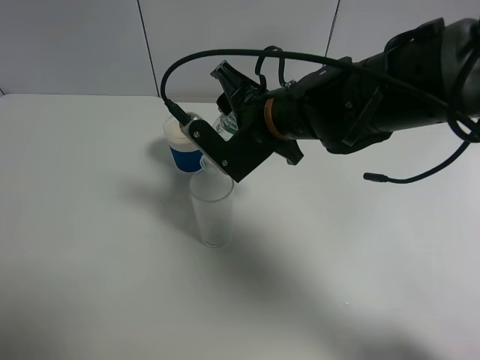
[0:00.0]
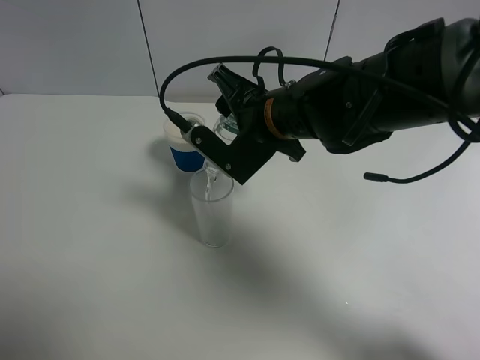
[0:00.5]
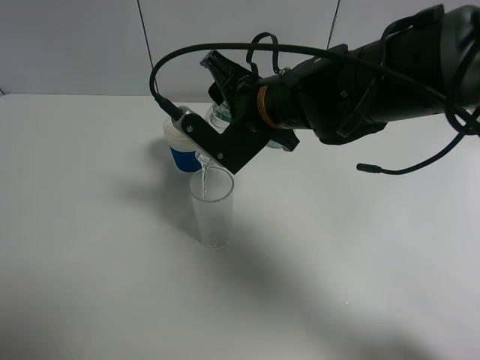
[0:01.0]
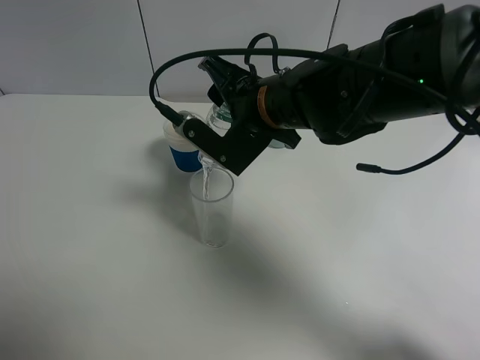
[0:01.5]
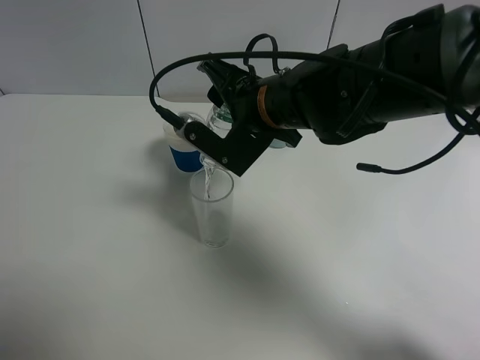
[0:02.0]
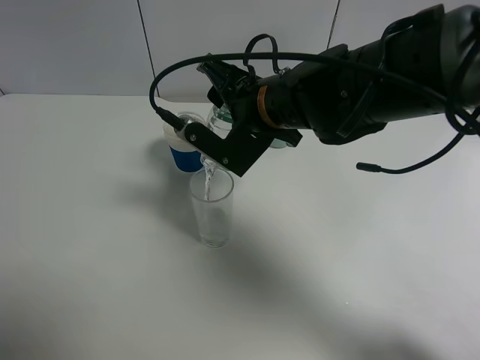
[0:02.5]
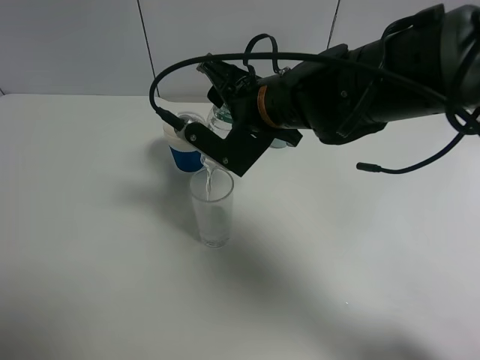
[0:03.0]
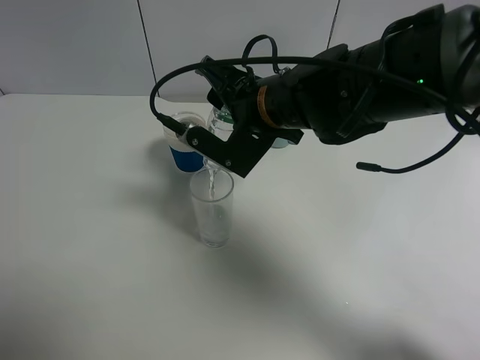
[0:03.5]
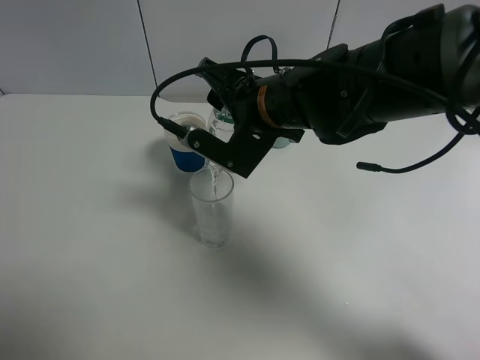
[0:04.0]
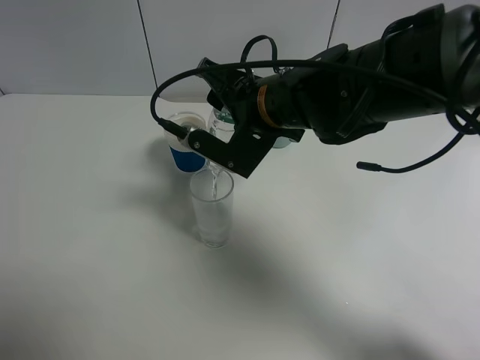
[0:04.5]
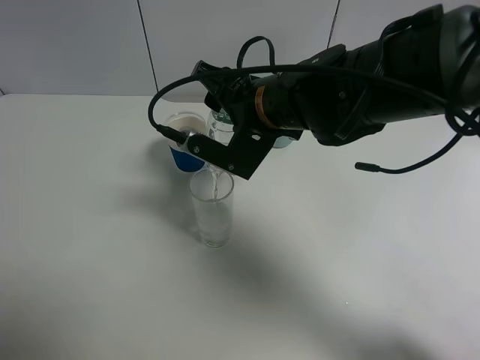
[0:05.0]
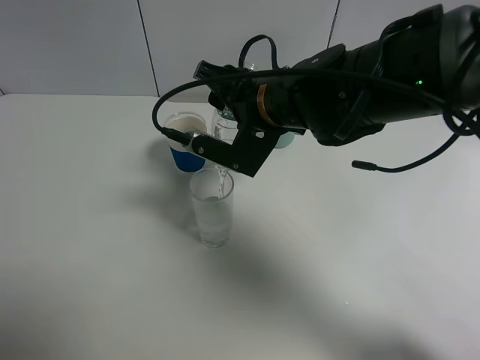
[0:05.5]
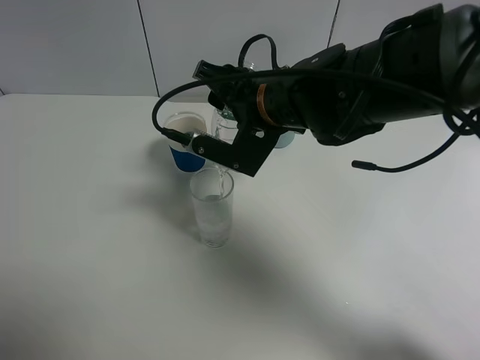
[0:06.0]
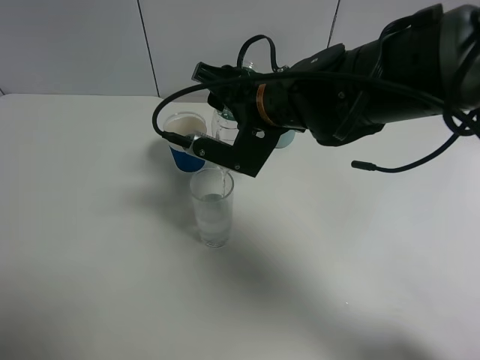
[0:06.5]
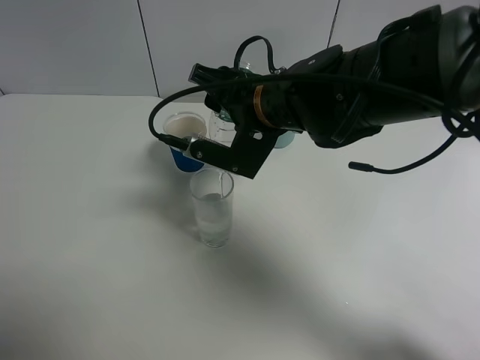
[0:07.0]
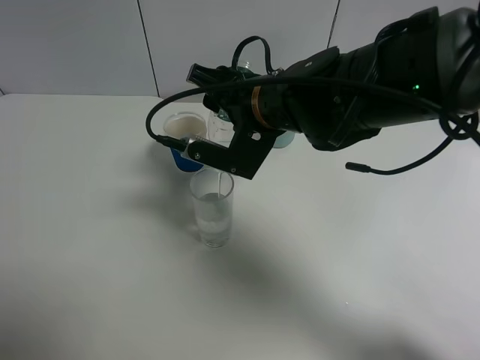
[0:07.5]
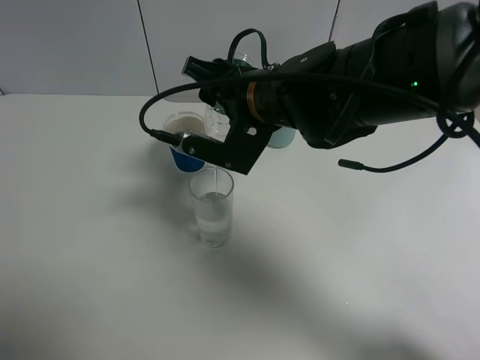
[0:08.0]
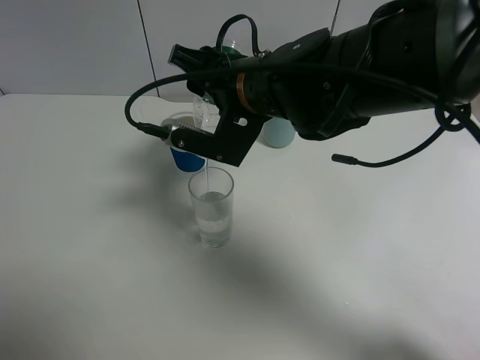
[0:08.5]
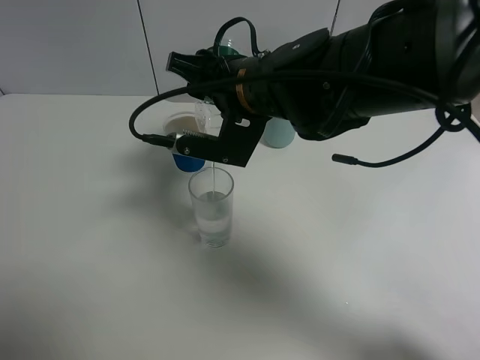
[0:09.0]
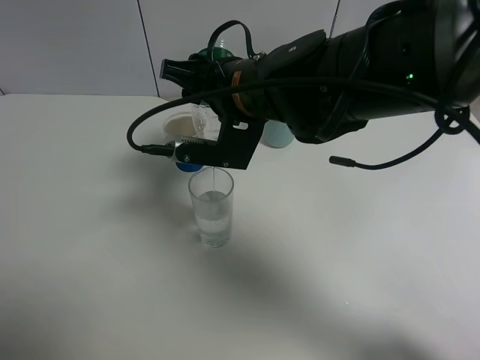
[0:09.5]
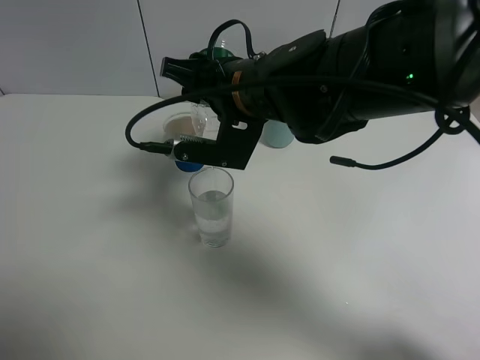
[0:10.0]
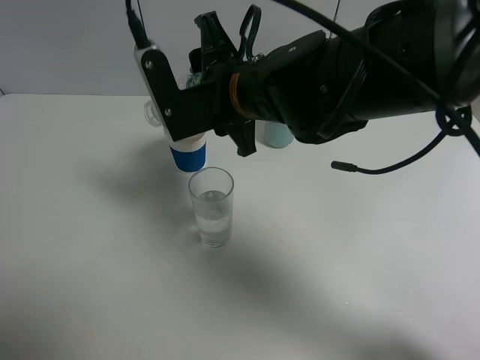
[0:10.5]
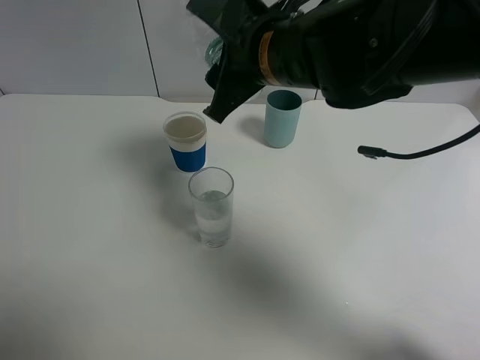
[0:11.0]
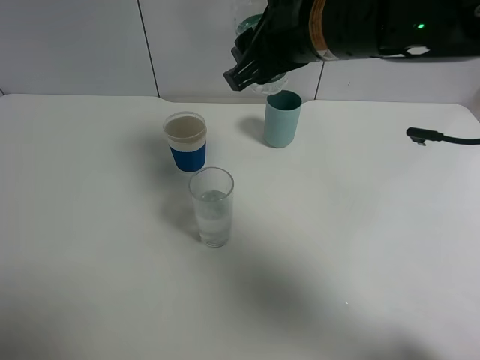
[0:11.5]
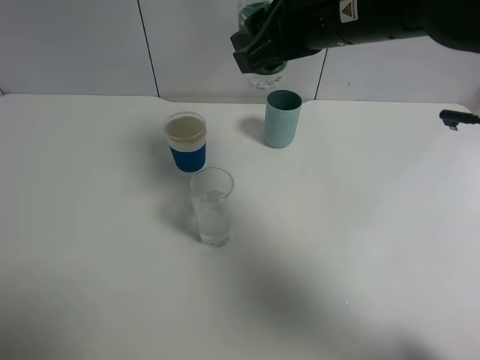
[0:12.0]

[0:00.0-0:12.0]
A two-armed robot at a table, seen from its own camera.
Task of the whole recording: use a gripper to hold the bottle of the drink and pour it into a random cup.
Step, 0:00.0 to 0:09.5: Pour the mineral water into the glass with the right gripper.
0:00.0 to 0:04.0: There are only small adjustments of the grippers.
0:04.0 to 0:06.0: There are only small adjustments of the grippers.
0:06.0 to 0:08.0: Both grippers stay put.
0:08.0 to 0:10.0: There are only small adjustments of the grippers.
0:10.0 to 0:12.0: The right gripper goes roughly 10 cm upward and to the right.

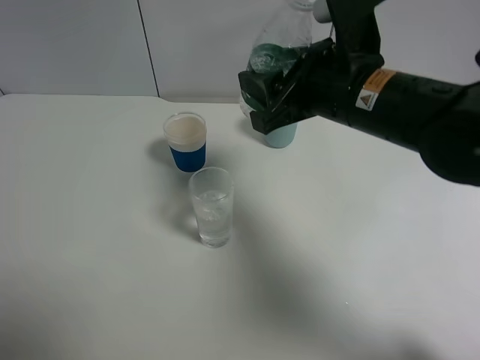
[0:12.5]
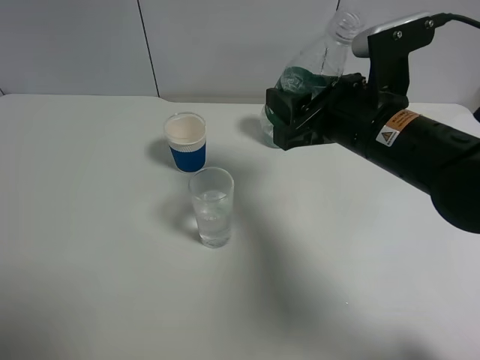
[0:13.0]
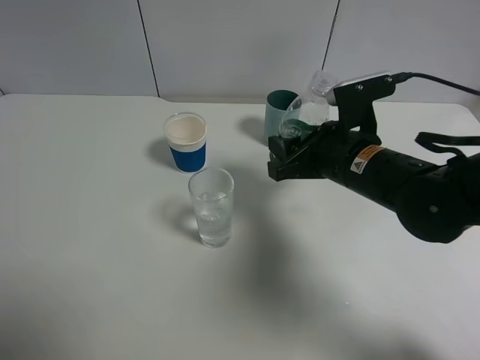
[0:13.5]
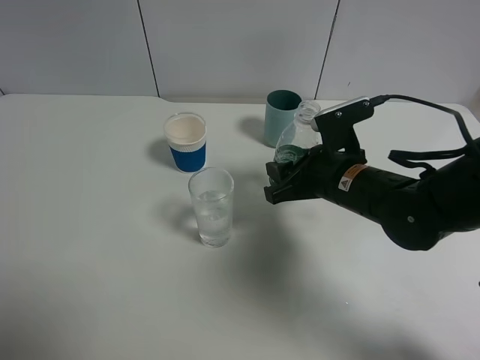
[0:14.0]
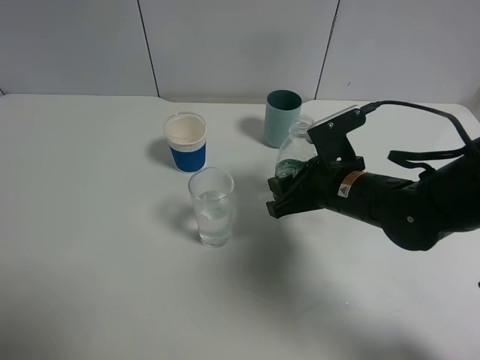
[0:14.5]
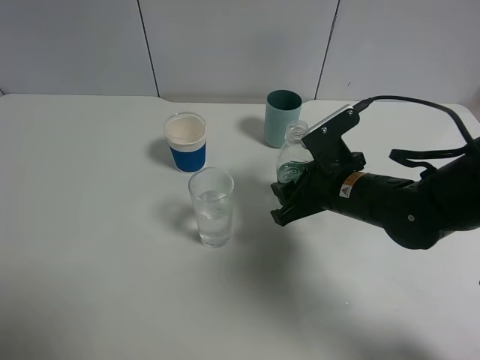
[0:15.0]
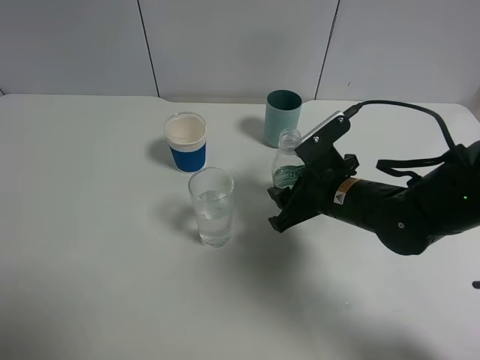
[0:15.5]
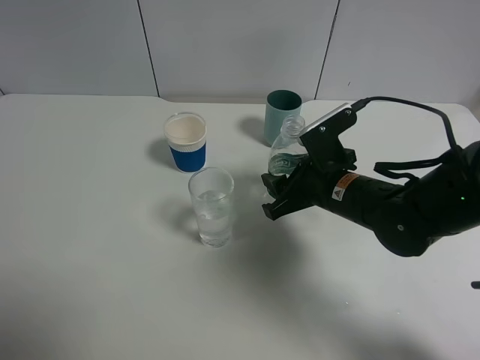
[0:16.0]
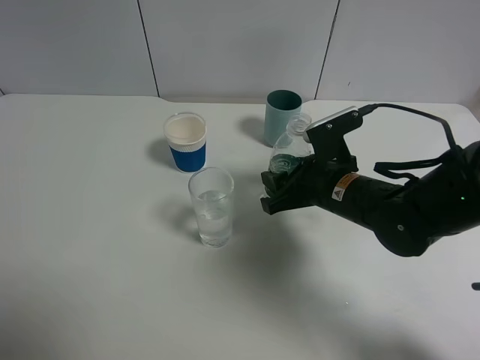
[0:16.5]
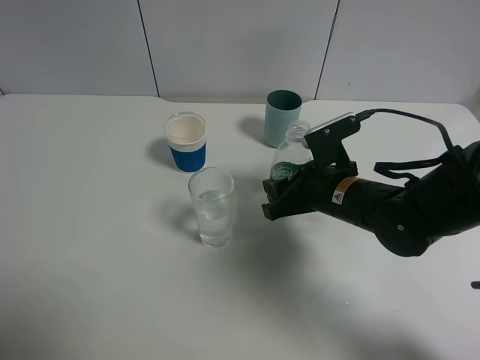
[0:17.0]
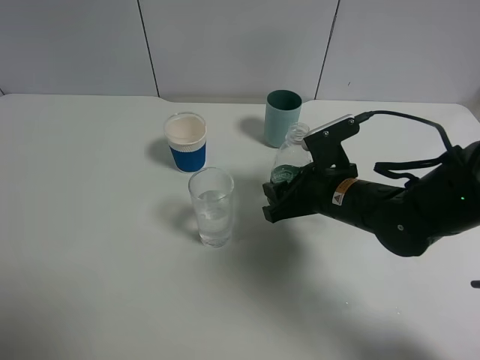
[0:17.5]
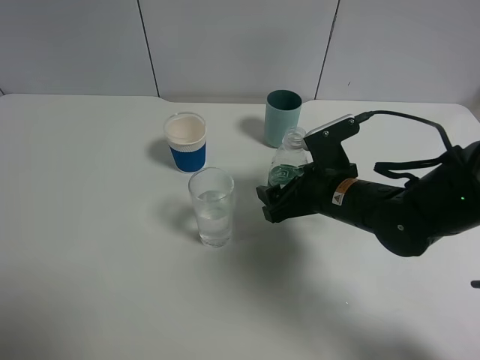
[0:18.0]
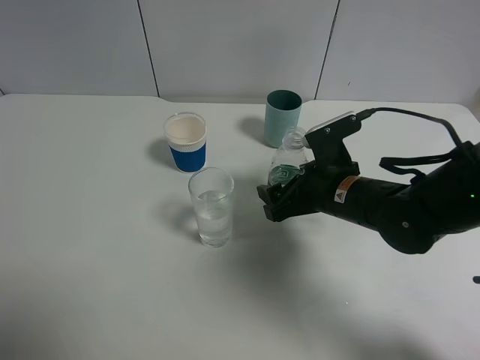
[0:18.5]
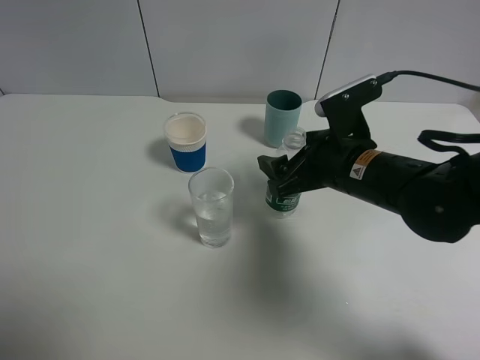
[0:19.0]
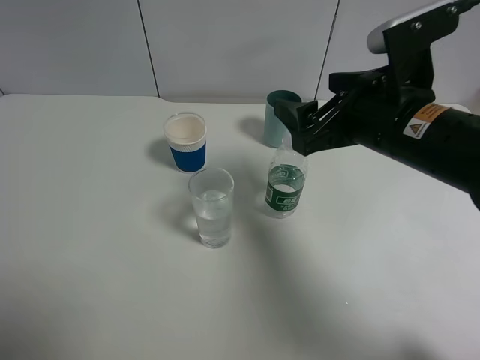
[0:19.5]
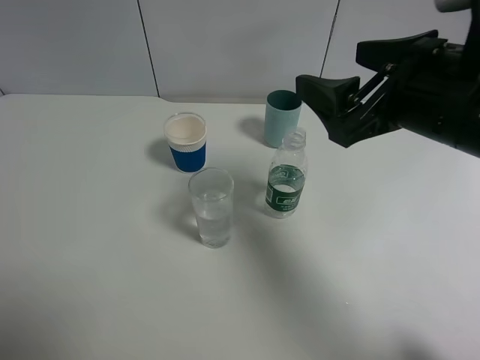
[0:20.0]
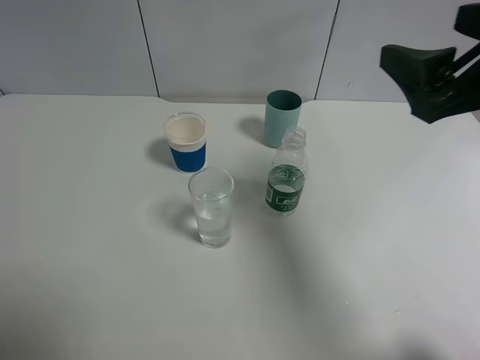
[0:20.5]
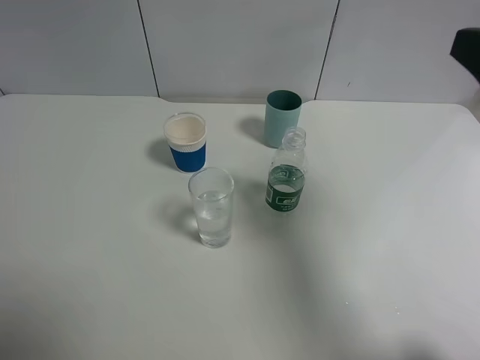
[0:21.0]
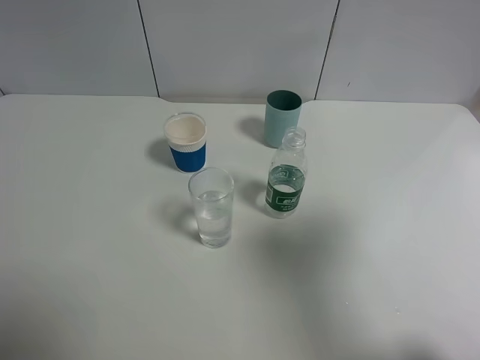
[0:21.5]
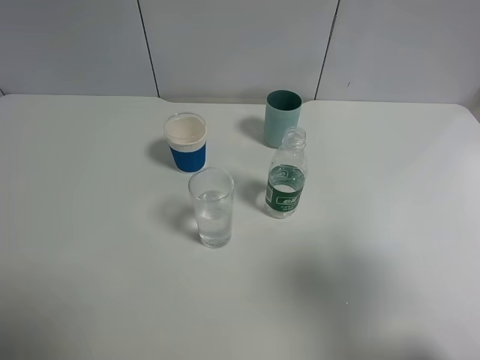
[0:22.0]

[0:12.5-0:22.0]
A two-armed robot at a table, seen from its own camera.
Task of the whole recording: use a gripper to hold the bottle of the drink and pour it into a random cup.
Step, 0:12.5 to 0:19.0: Place the mineral water bottle on the table with the right gripper.
0:12.5 to 0:14.5: The right gripper is displaced downward by approximately 10 cm.
0:14.5 to 0:16.5: There are only small adjustments of the grippers.
0:16.5 to 0:18.0: The right gripper opens up.
0:18.0 to 0:20.0: The right gripper heads upward, covering some 15 cm.
0:20.0 to 0:22.0: The right gripper moves backward and to the right, some 20 cm.

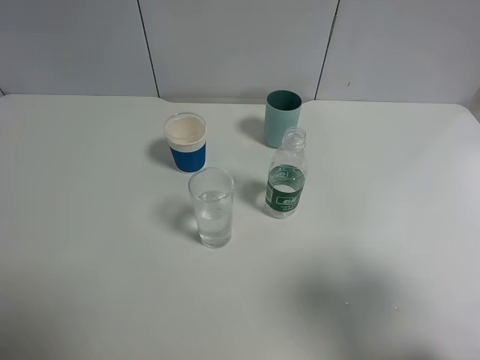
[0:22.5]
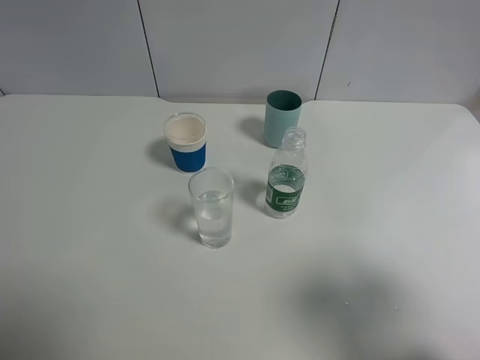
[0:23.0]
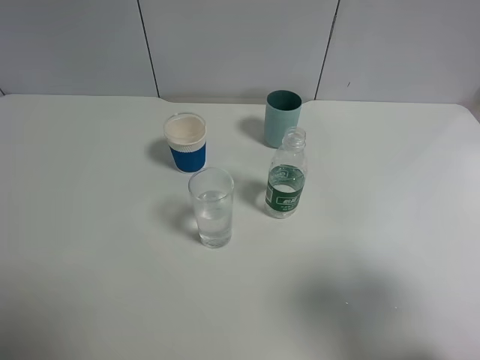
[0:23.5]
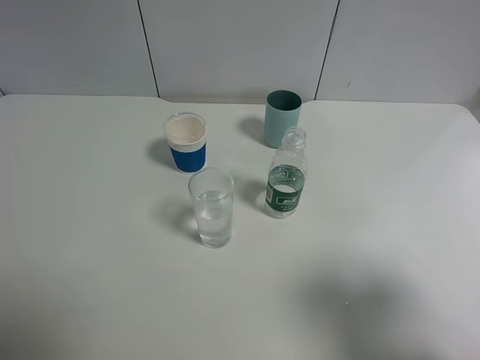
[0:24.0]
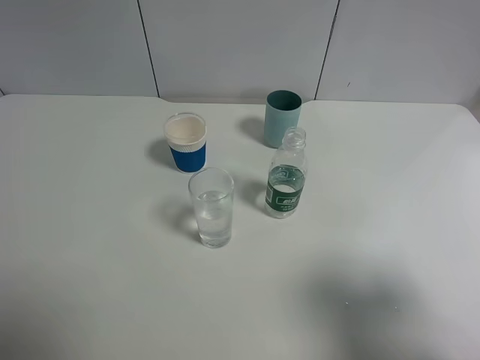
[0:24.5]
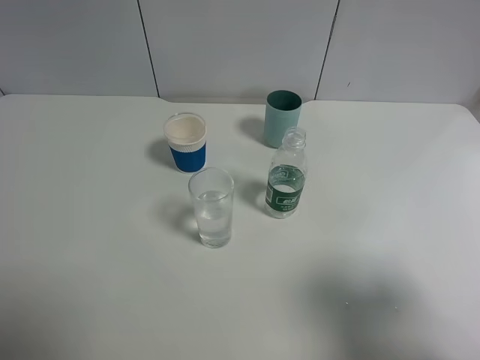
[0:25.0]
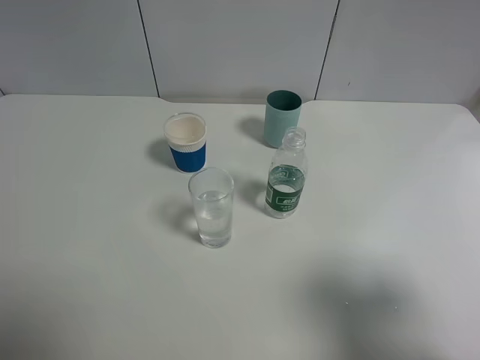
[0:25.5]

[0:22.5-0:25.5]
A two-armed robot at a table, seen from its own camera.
Task of the whole recording: use a gripper to hold the bottle of the drink and pour it into a random cup.
0:24.0 to 0:25.5: Both grippers stay about where they are.
